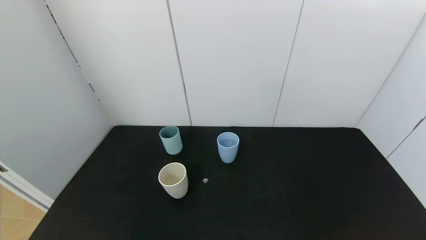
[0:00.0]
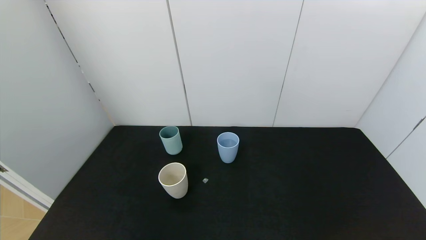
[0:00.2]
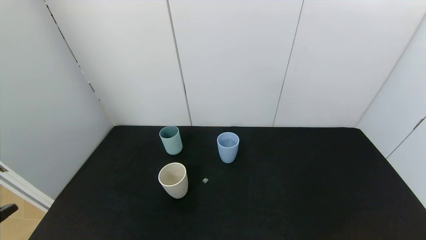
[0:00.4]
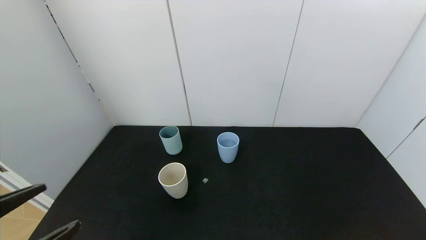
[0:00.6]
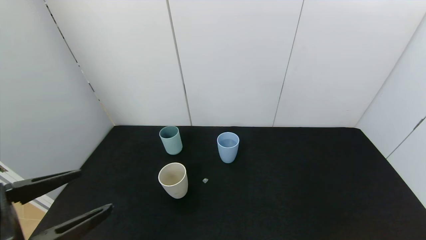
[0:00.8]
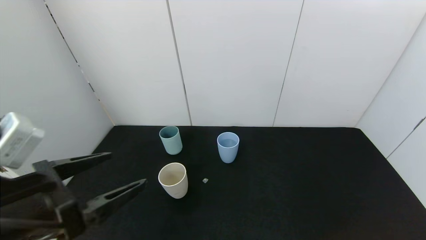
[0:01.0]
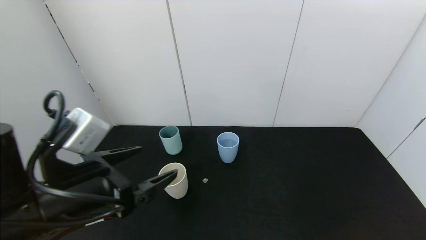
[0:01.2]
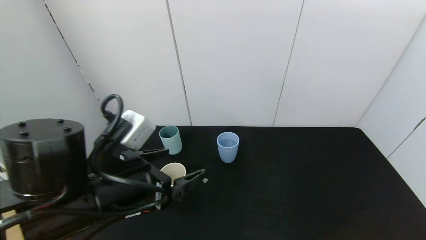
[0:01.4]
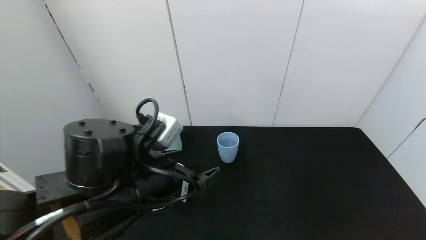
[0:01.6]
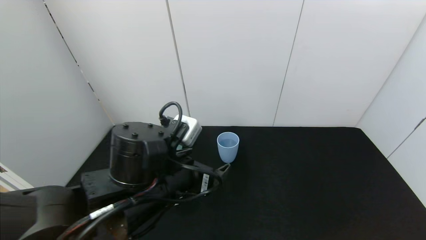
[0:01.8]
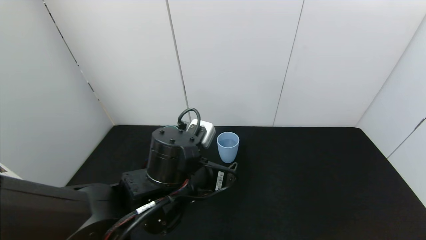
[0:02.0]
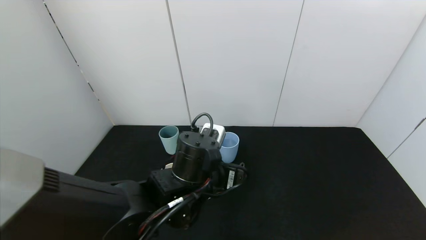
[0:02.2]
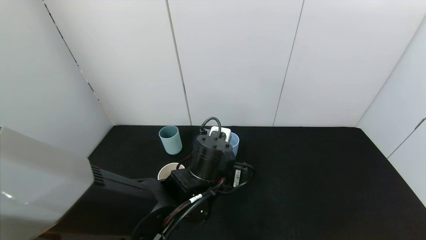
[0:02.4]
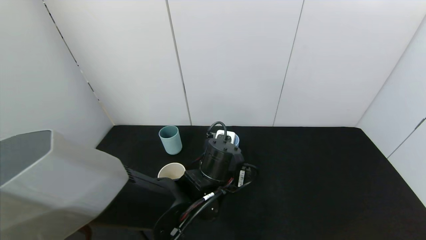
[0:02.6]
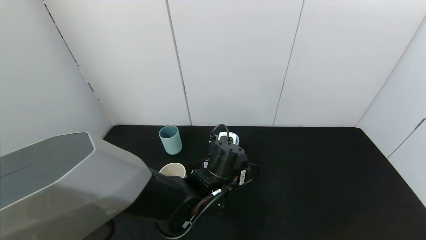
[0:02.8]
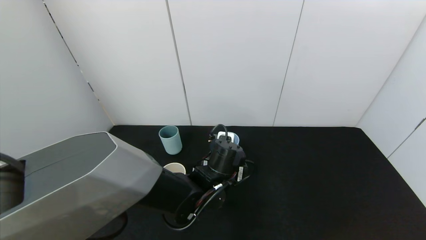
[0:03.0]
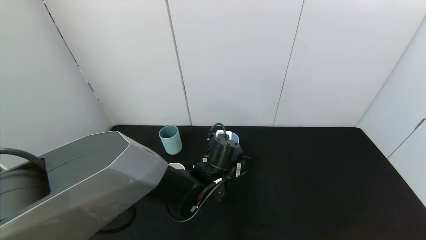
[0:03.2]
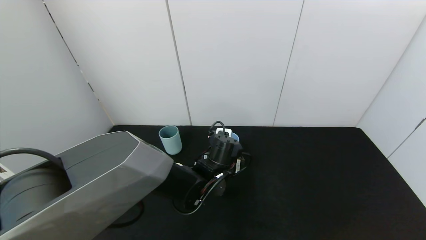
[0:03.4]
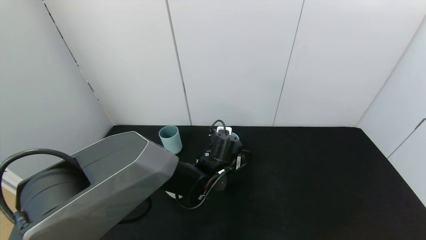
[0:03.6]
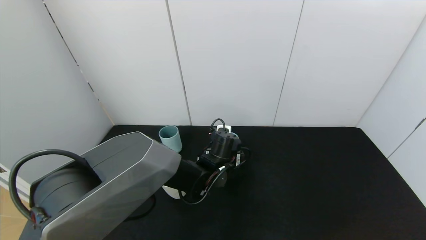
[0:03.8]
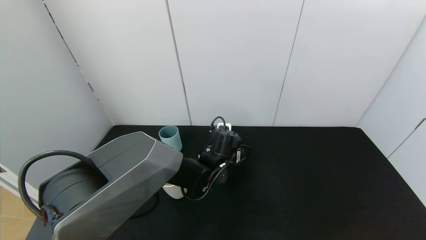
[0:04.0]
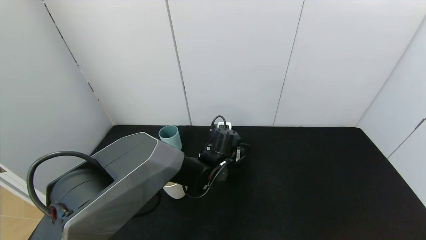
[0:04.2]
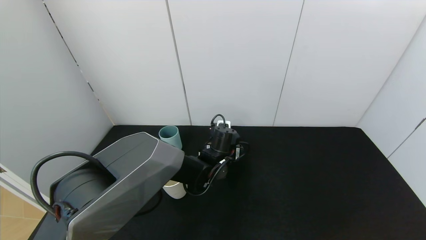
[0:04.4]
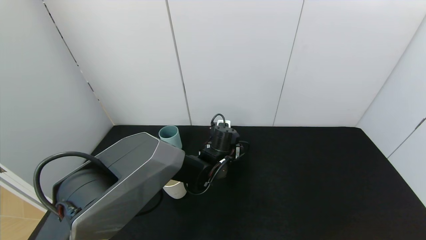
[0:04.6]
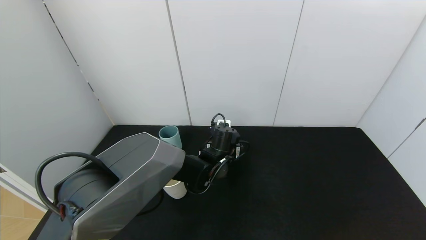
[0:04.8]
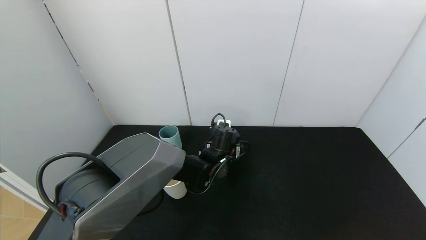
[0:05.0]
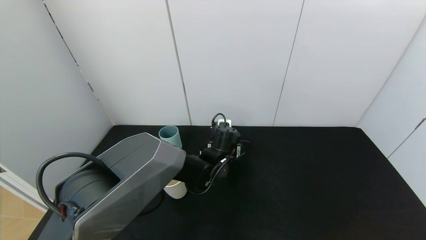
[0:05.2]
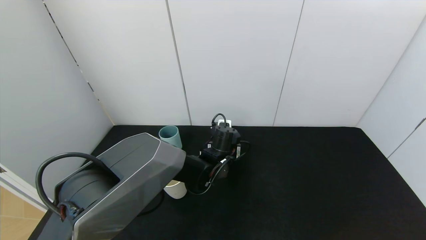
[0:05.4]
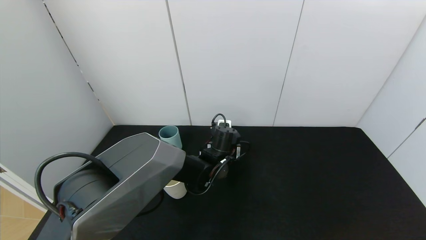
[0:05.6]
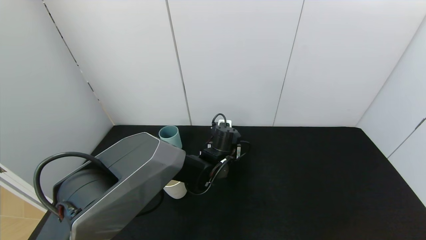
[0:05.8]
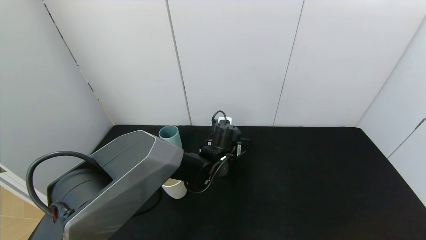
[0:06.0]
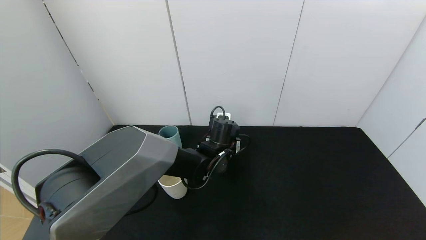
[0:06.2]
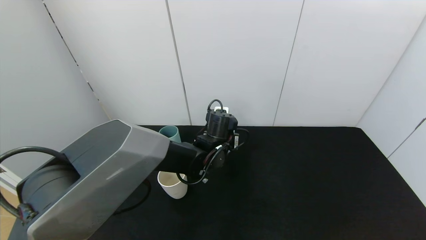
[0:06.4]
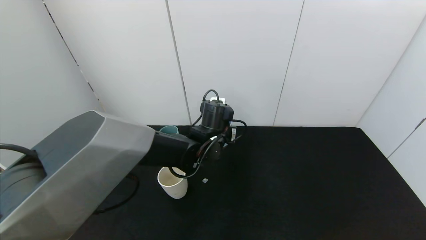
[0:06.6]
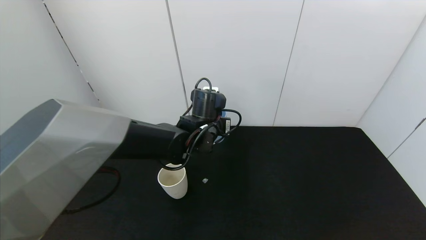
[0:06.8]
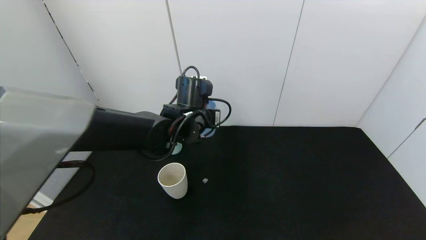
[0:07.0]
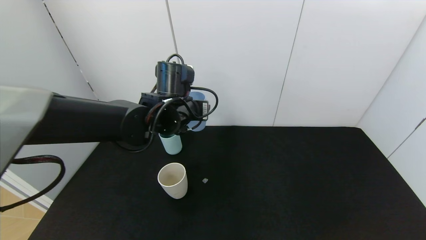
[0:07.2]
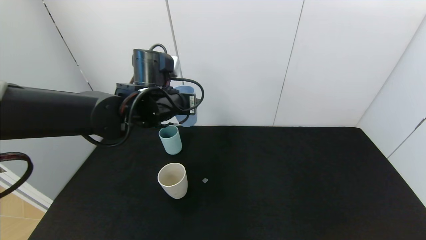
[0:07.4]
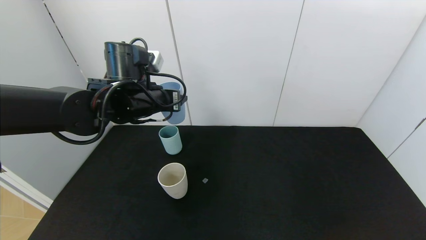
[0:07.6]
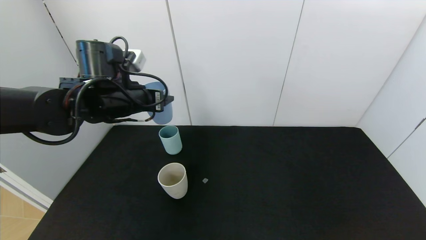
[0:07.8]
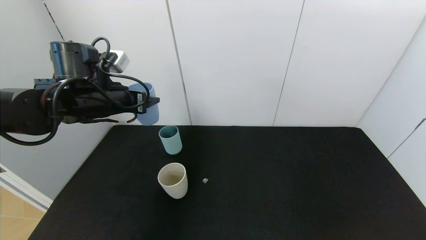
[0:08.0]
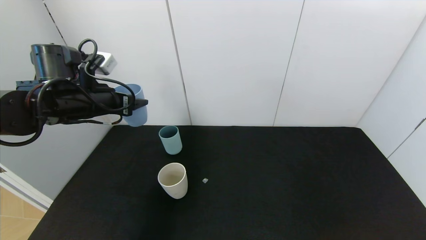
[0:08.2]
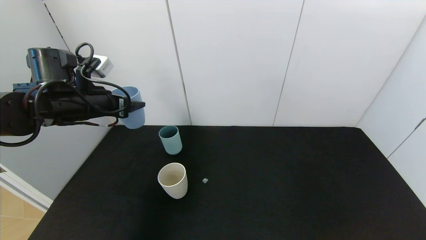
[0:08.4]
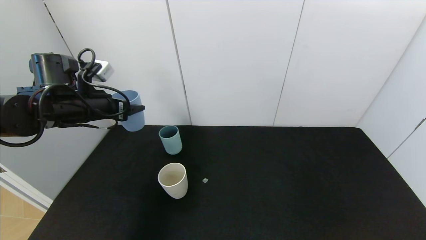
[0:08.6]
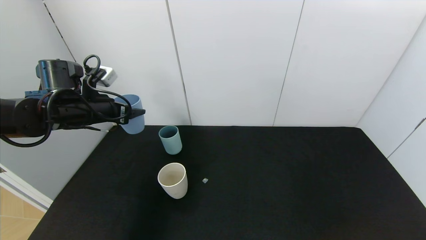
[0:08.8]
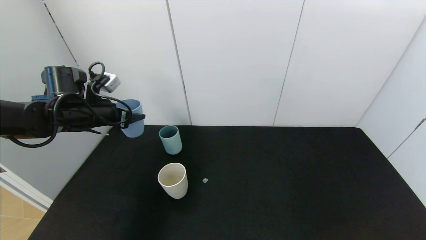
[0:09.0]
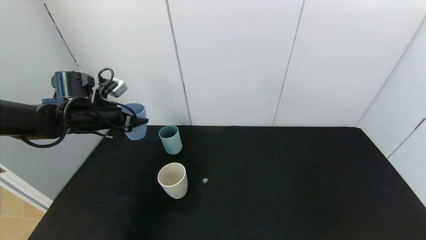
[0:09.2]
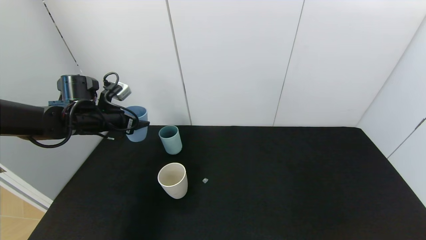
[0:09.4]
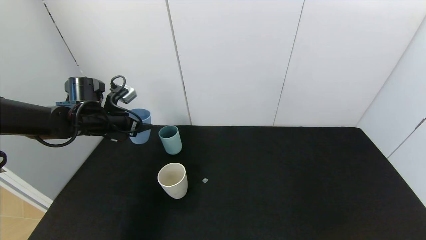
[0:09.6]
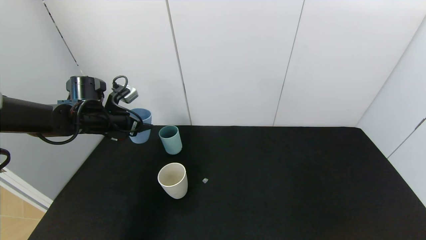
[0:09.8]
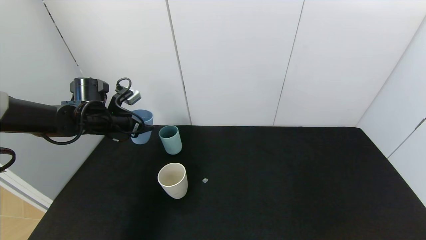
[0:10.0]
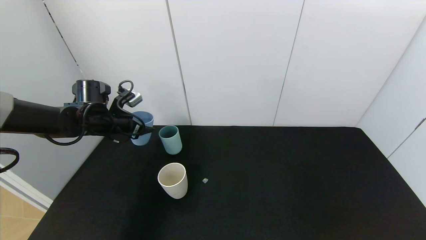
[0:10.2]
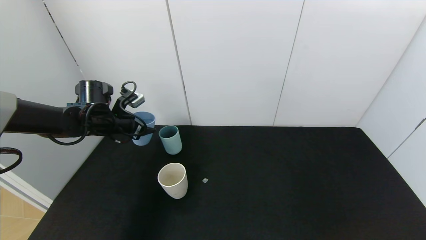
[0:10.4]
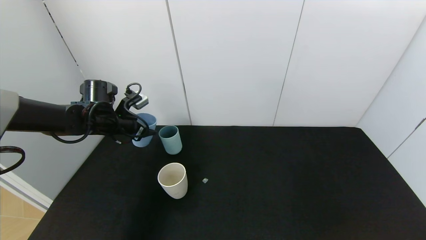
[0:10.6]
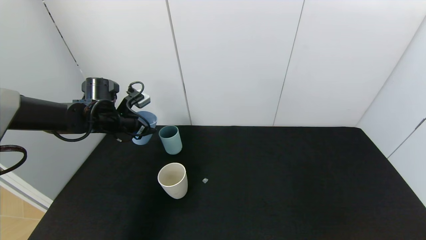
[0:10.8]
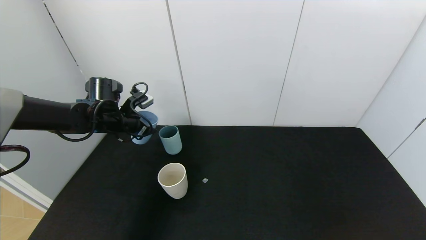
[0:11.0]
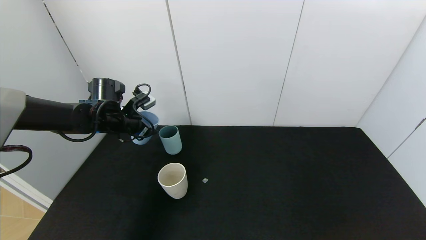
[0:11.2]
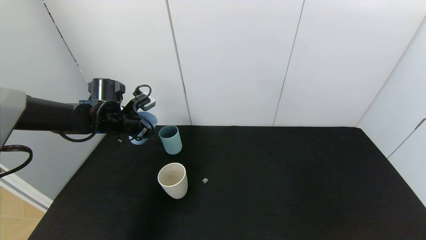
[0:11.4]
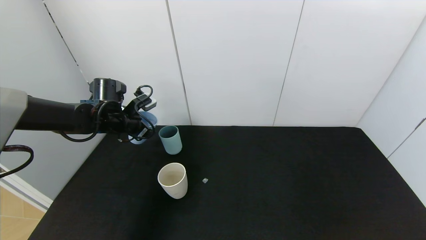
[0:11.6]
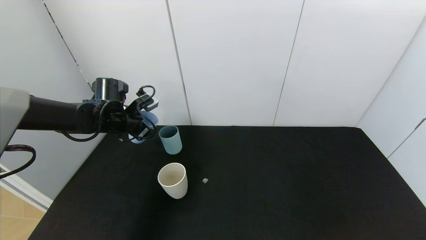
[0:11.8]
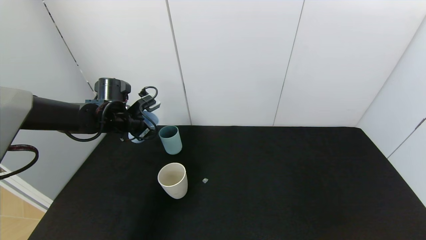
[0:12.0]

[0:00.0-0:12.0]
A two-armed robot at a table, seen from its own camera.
Task of the whole recording: use the gripper to pour the water into the other two cups on black table.
Step, 0:00.0 to 0:05.8: Grasp the blue cup with the left gripper.
0:00.0 to 0:01.6: The left gripper goes roughly 25 cm forward and to the right.
0:01.6 to 0:03.0: The left gripper travels to the right, forward and downward by about 20 cm.
0:03.0 to 0:04.4: The left gripper travels forward by some 10 cm.
0:04.4 to 0:06.0: The left gripper closes up.
0:06.0 to 0:07.6: The left gripper is displaced upward and to the left by roughly 25 cm.
0:07.6 to 0:09.0: The left gripper is displaced to the left by about 15 cm.
0:09.0 to 0:10.4: The left gripper moves roughly 5 cm.
0:10.4 to 0:12.0: The grippers make only small movements.

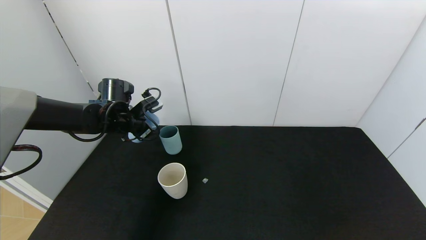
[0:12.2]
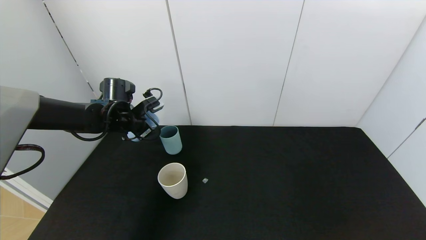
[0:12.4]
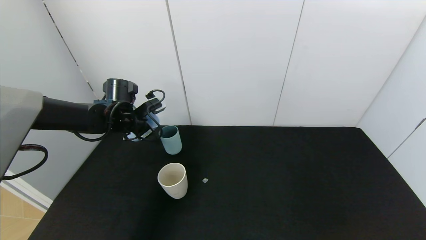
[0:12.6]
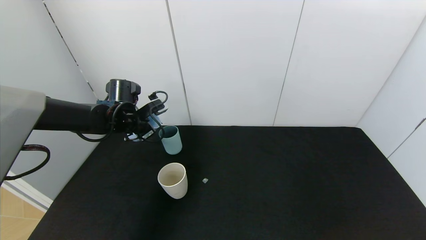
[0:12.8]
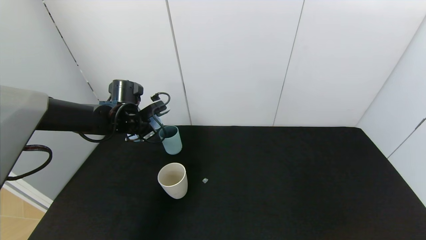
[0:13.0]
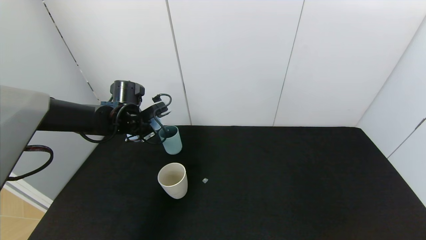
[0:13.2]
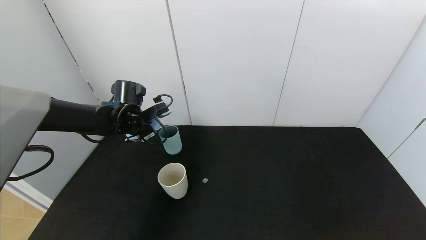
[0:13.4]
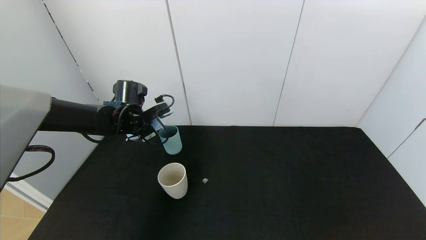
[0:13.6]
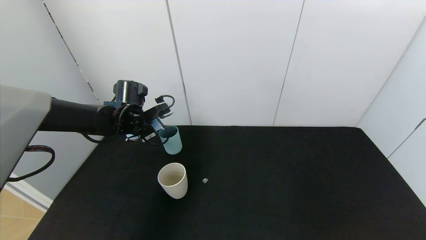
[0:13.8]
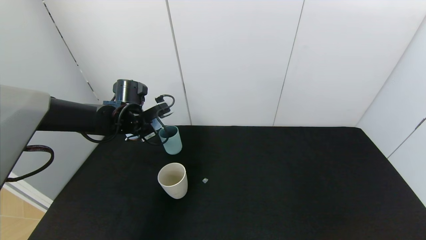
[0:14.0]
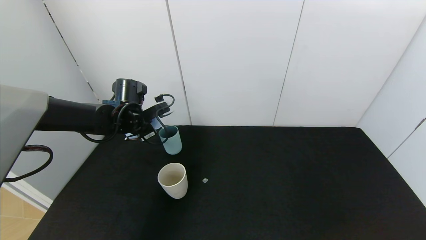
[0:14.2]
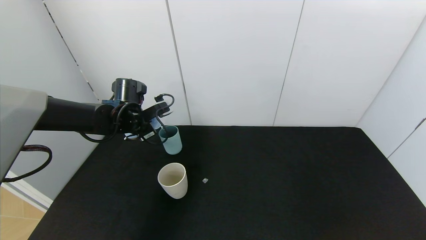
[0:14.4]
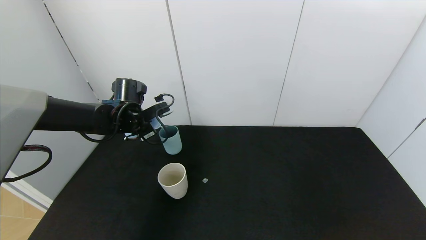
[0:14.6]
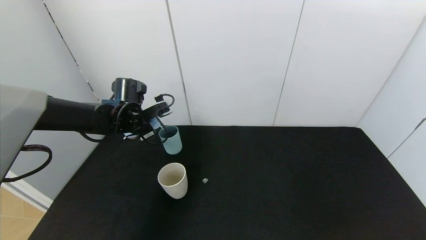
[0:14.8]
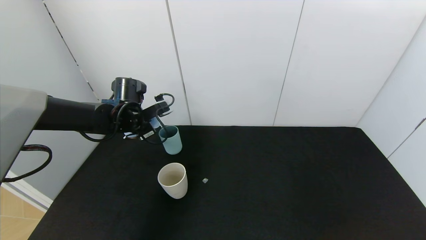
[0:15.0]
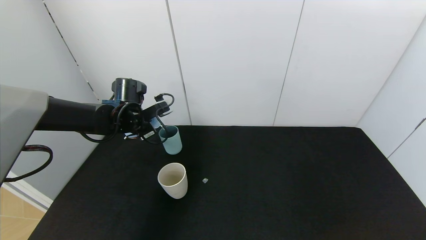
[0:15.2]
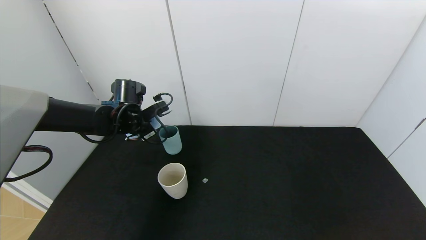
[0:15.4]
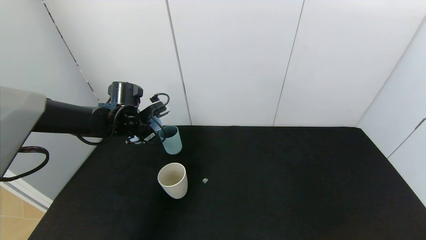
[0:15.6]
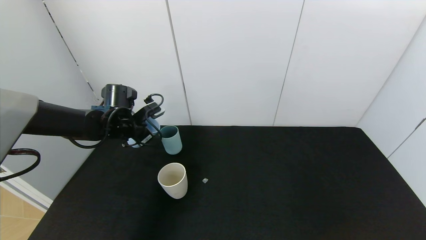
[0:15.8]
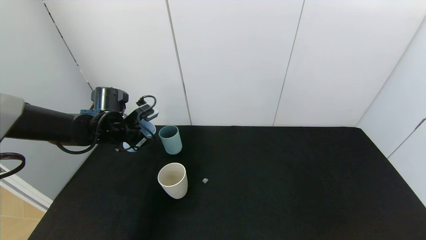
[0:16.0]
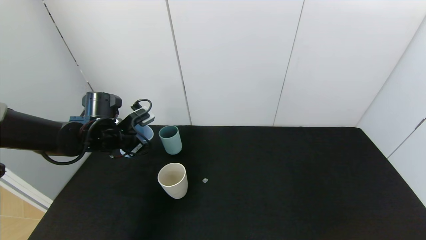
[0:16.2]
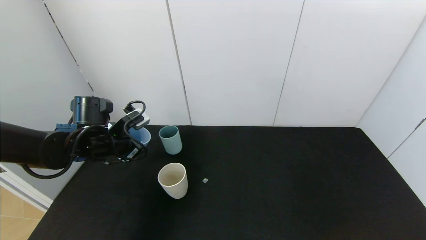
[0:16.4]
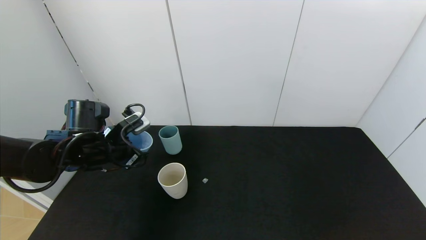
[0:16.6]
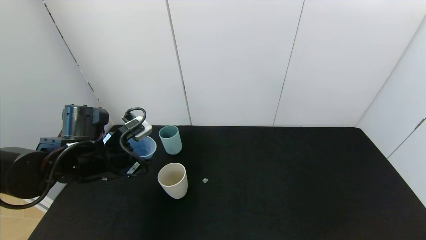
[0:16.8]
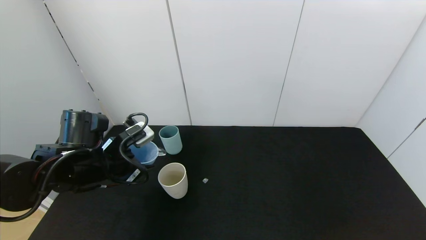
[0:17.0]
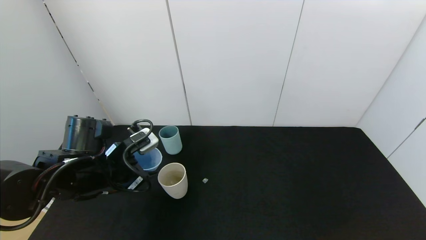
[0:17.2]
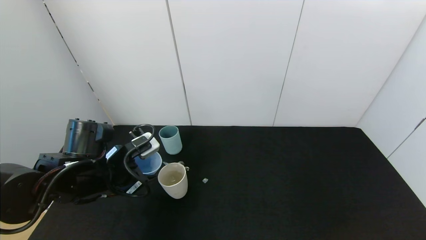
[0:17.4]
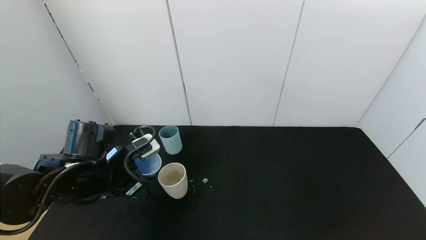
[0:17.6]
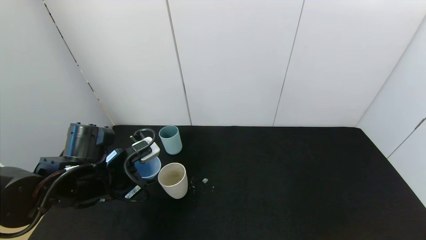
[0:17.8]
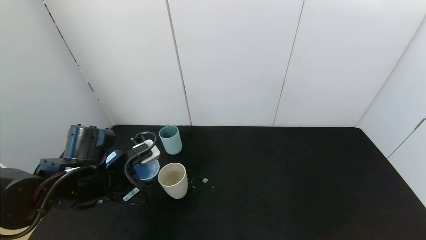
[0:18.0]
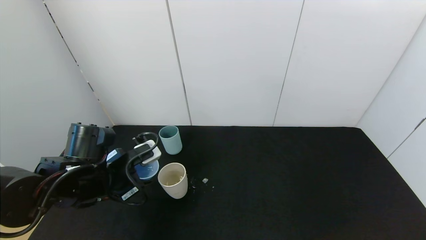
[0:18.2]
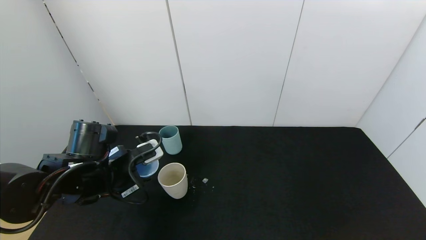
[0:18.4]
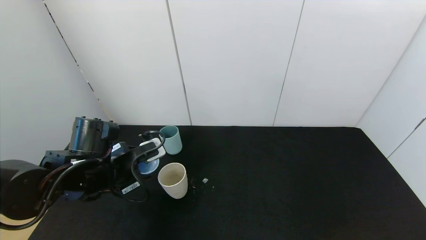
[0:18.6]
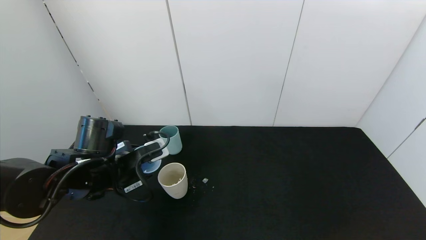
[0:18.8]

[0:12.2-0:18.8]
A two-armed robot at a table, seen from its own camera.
Task of the whole recording: use the gripper to pour the water into the other two cups on black table.
Step, 0:12.2 to 0:16.0: Pour water from blue cup to green cup with the left gripper.
0:12.2 to 0:13.8: The grippers move only a little.
0:13.8 to 0:15.4: Both grippers stay put.
0:15.4 to 0:17.2: The left gripper goes approximately 15 cm backward.
0:17.2 to 0:18.8: The grippers move only a little.
